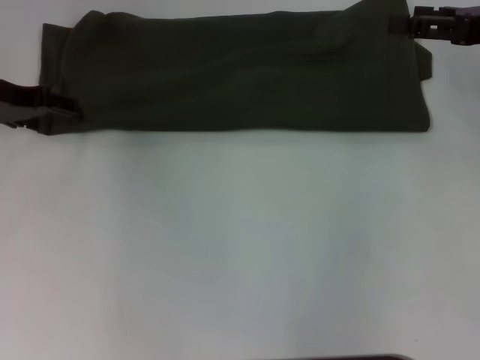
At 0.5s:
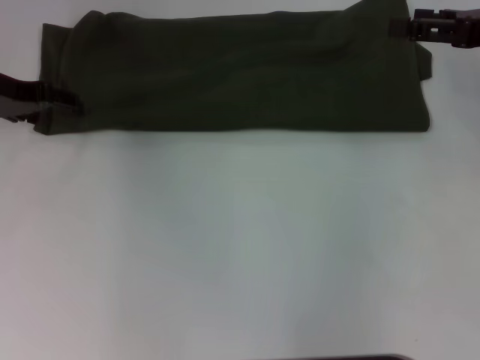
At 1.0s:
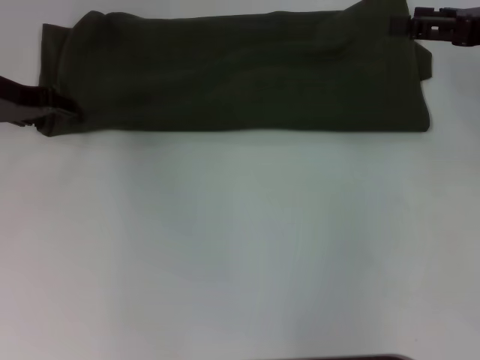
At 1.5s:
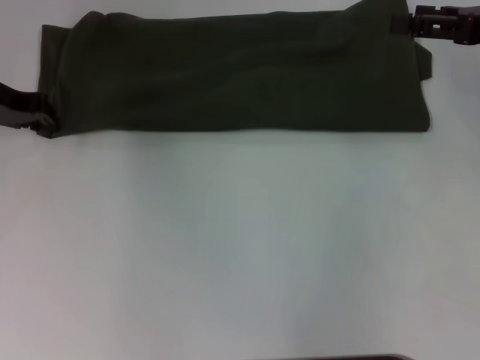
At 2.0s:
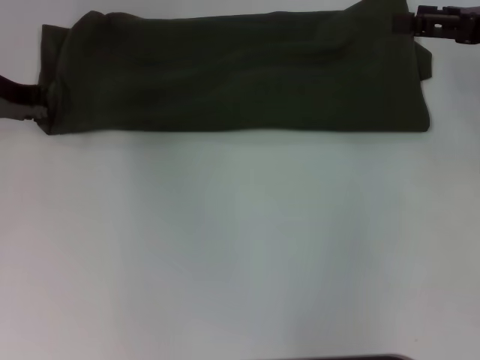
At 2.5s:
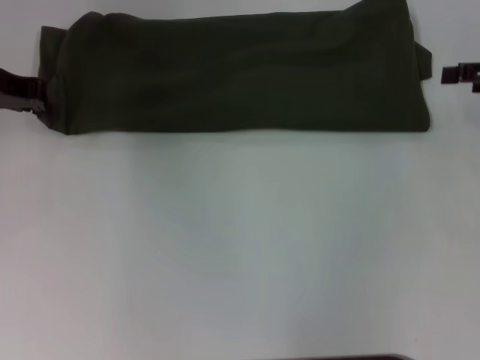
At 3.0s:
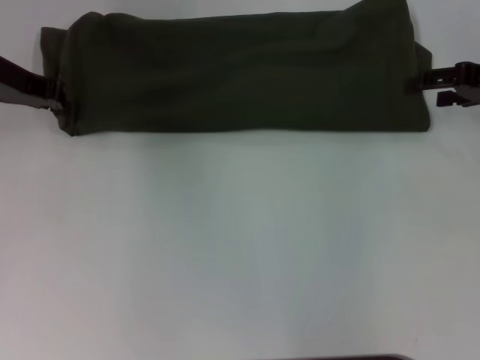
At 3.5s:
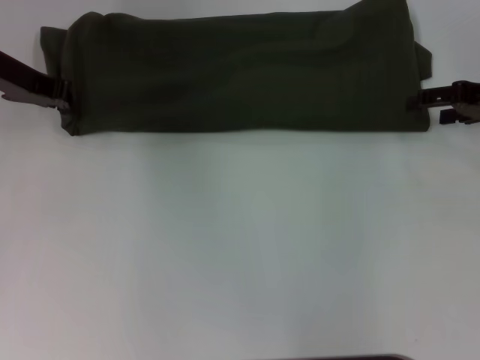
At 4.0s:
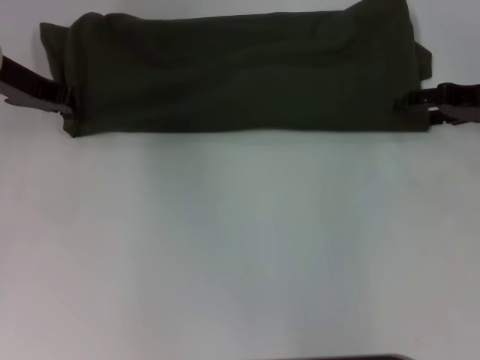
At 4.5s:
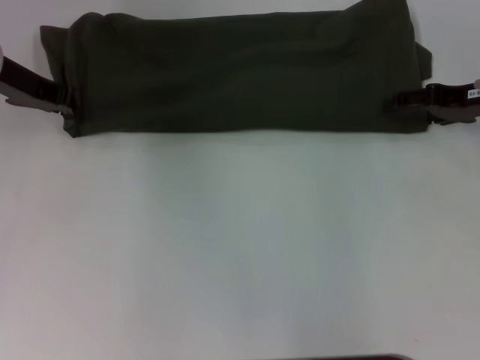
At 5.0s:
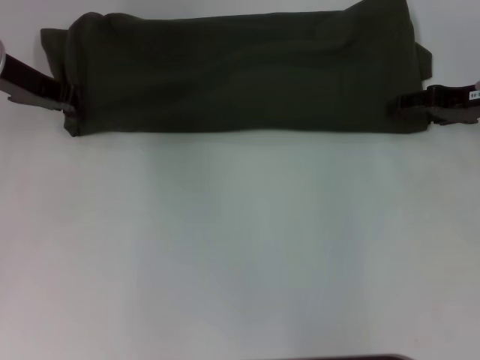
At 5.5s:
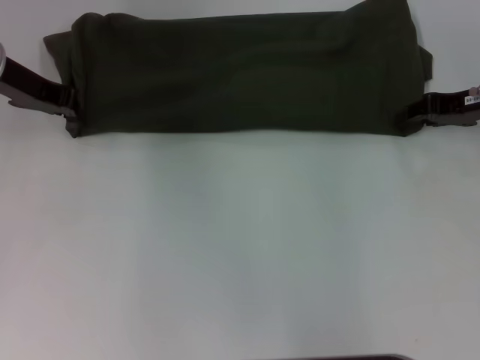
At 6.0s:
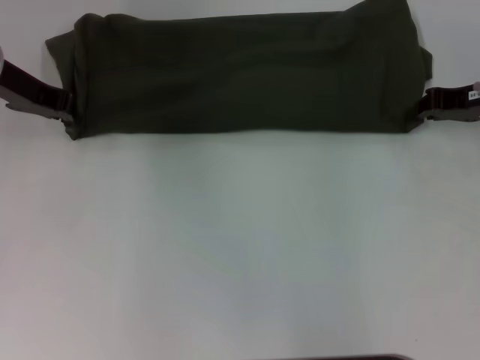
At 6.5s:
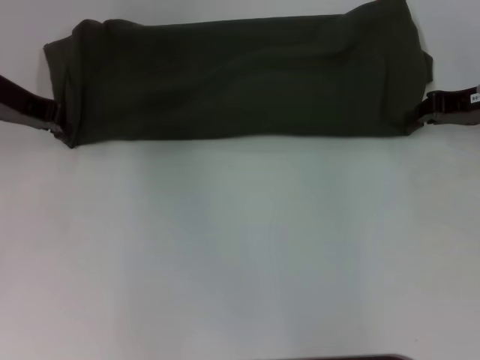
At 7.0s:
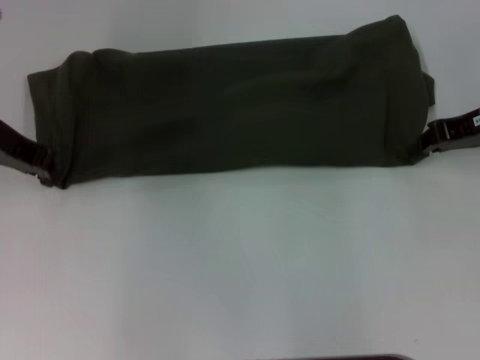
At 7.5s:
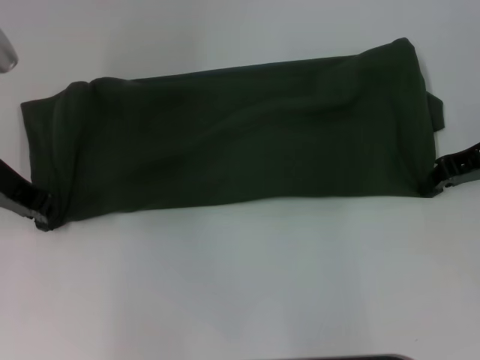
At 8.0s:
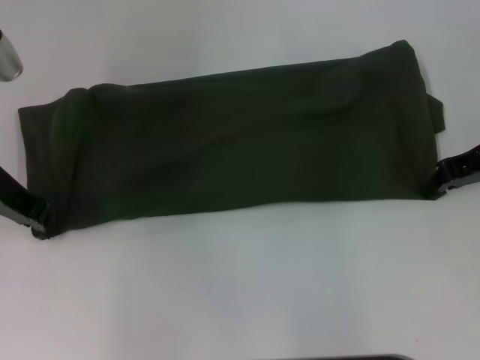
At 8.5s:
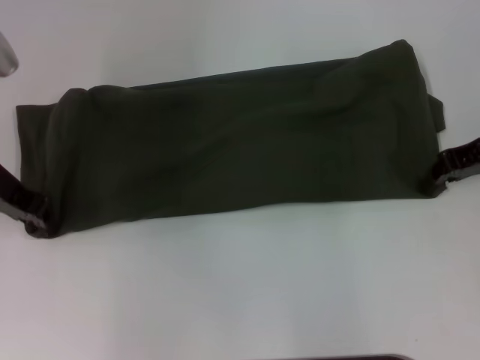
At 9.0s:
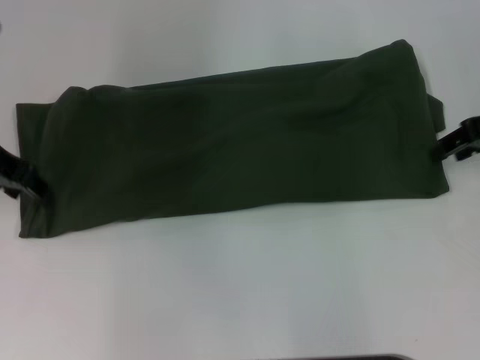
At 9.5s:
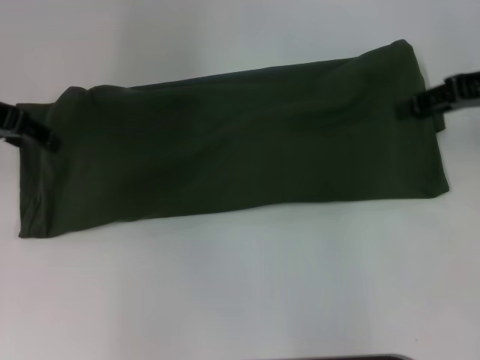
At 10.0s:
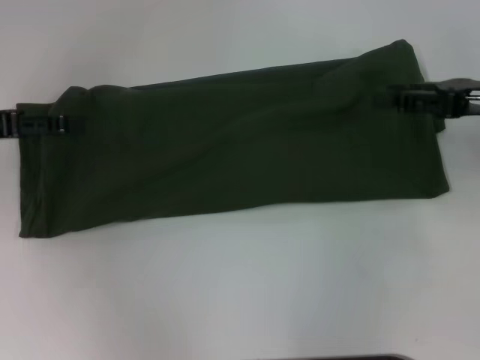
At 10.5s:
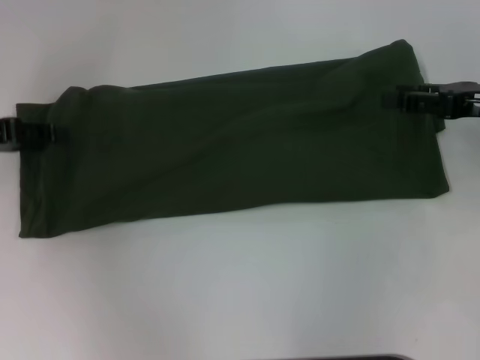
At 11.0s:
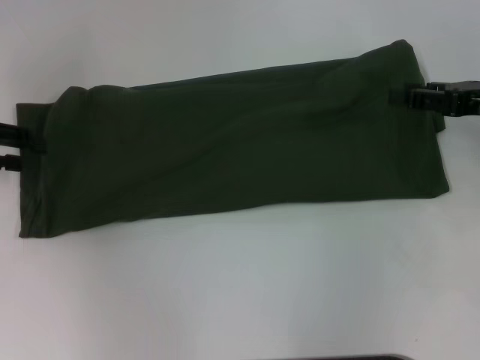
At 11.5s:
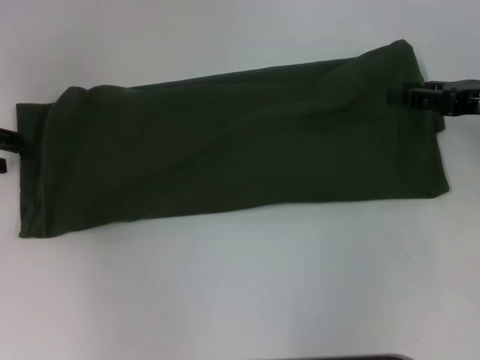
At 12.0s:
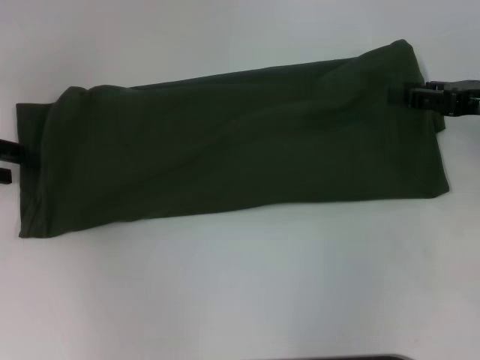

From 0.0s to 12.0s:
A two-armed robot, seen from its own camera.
Step, from 0.0s to 8.5s: Pull the clothes with your right hand.
From 2.0s to 4.0s: The right gripper is displaced downward by about 5 cm.
From 4.0s to 6.0s: The right gripper closes up.
From 6.0s to 8.0s: The left gripper shifts approximately 5 cm backward.
From 8.0s to 10.0s: The left gripper is displaced to the left by about 5 cm, and opens up. The right gripper opens up.

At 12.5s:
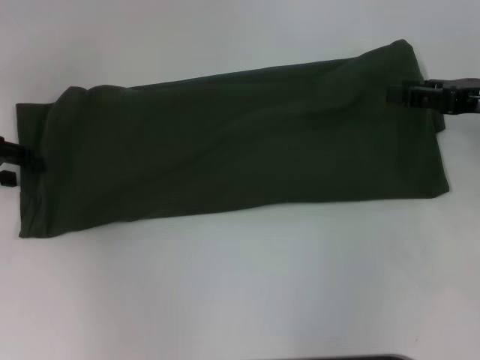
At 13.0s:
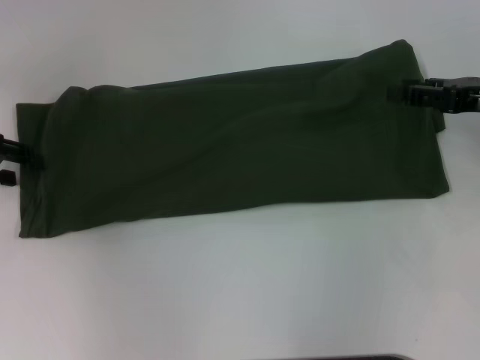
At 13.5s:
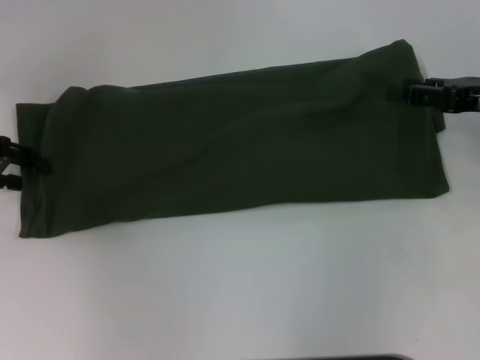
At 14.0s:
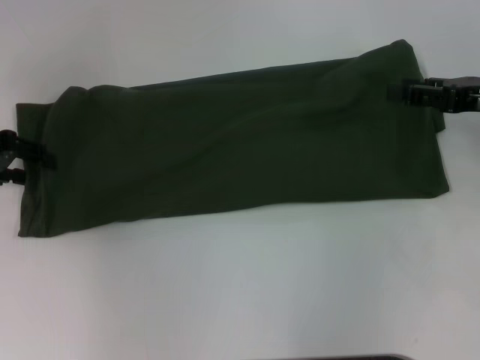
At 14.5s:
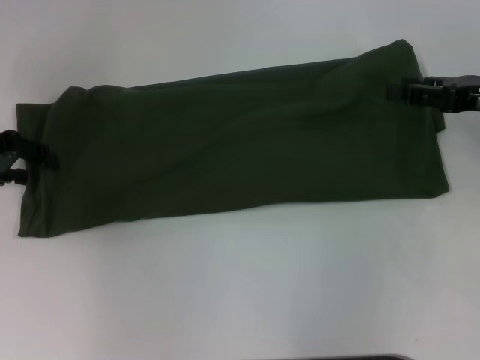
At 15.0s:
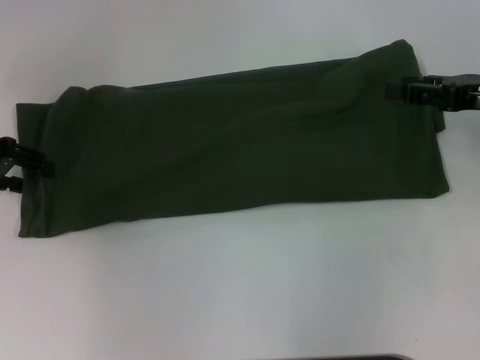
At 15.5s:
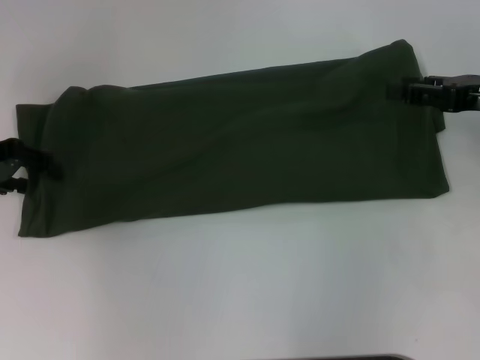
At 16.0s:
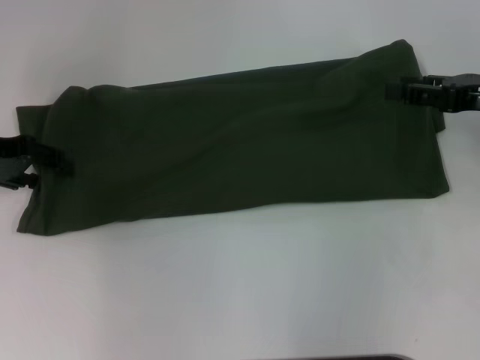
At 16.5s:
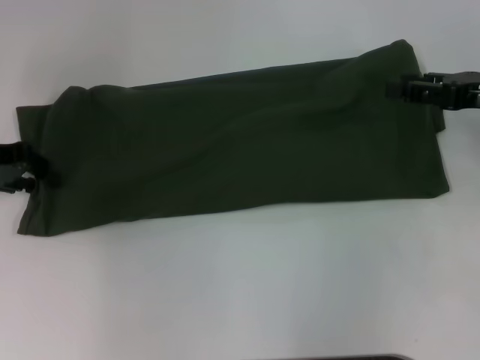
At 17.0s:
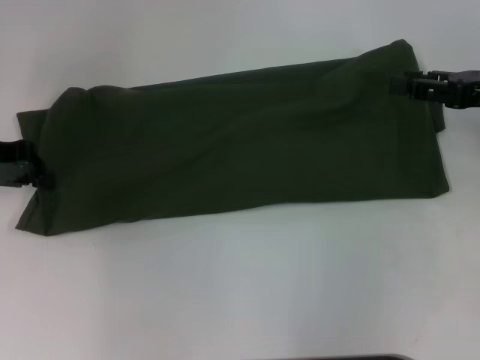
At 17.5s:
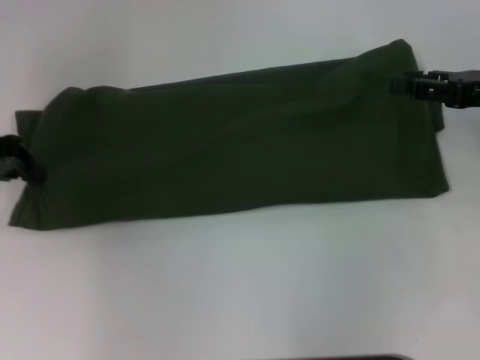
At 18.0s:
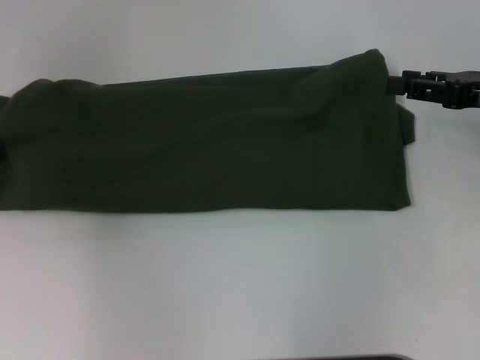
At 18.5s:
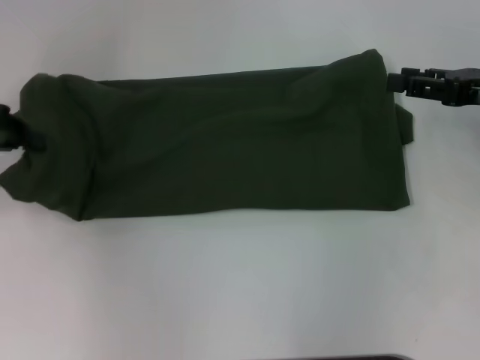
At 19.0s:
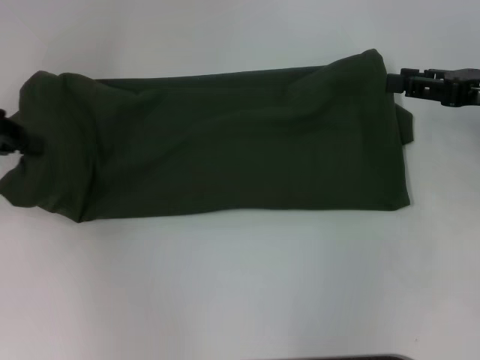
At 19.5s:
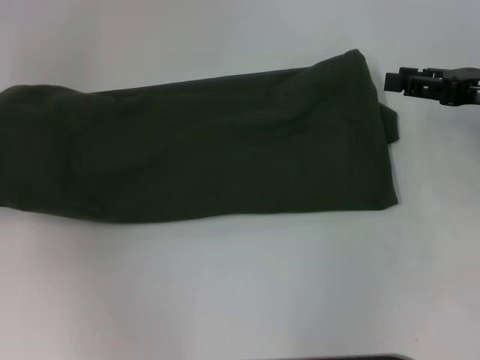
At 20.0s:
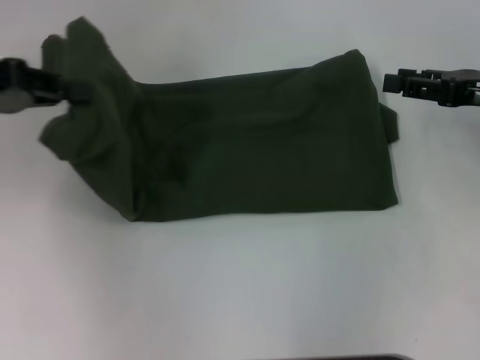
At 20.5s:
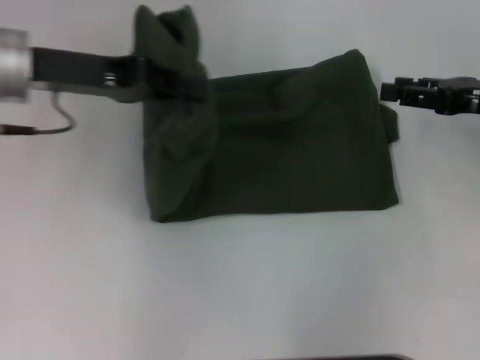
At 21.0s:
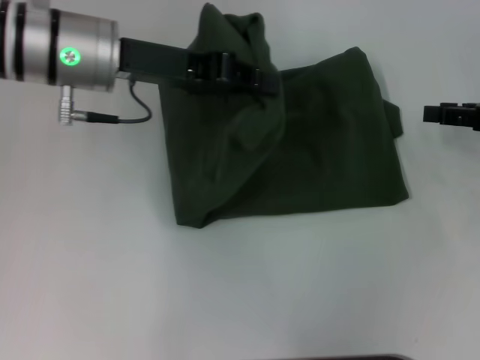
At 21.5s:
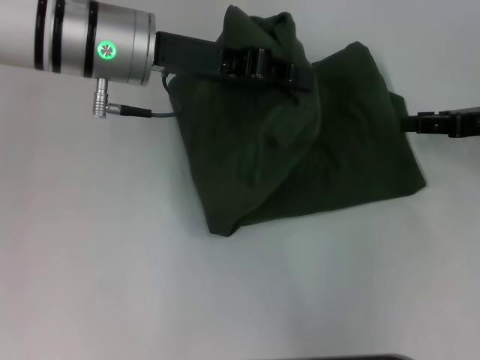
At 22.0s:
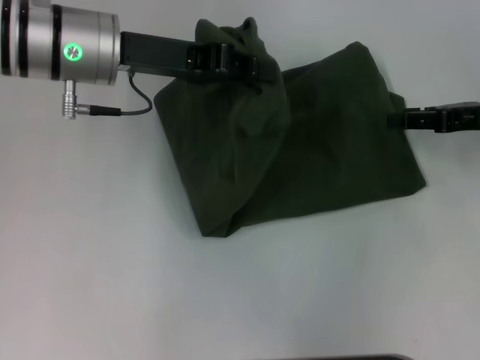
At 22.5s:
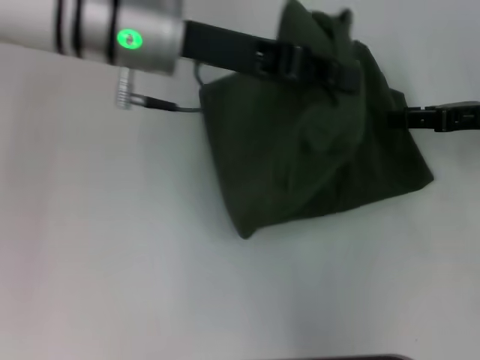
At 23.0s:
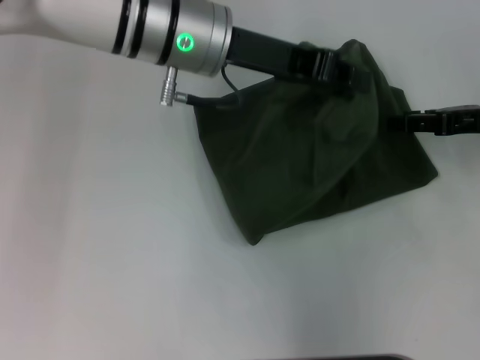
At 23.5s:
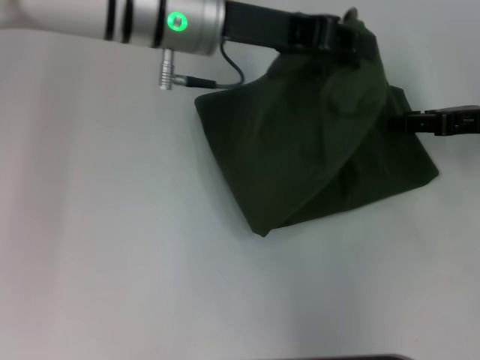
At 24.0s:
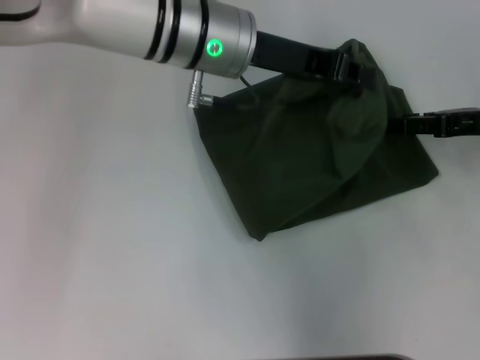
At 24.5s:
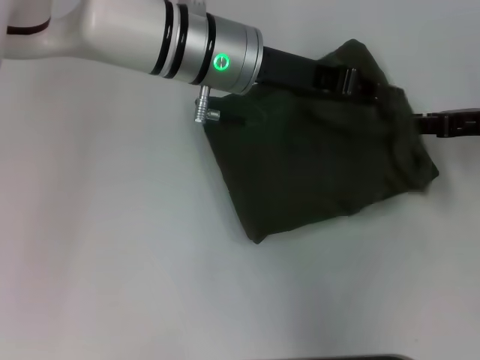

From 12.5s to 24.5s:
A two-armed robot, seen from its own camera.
Step, from 12.5s to 24.5s: Fold the clothes with your left hand.
From 14.5s to 16.5s: There are only small adjustments of the grippers.
From 16.5s to 18.5s: The left gripper ends up roughly 5 cm from where it was, and closes its fingers.
From 18.5s to 20.5s: The left gripper goes roughly 10 cm to the right.
From 20.5s to 22.5s: The left gripper heads to the right, covering roughly 10 cm.
From 22.5s to 24.5s: The left gripper is displaced to the right by about 5 cm.

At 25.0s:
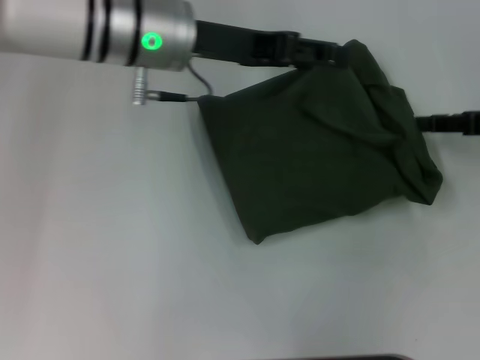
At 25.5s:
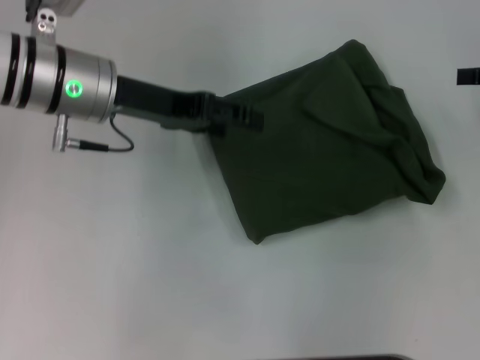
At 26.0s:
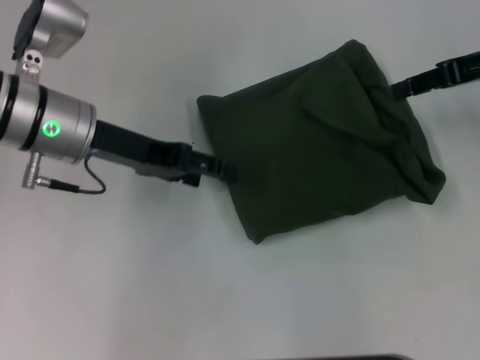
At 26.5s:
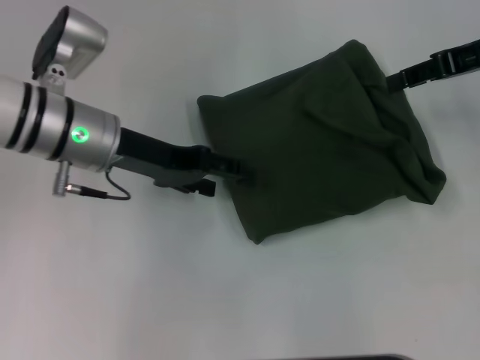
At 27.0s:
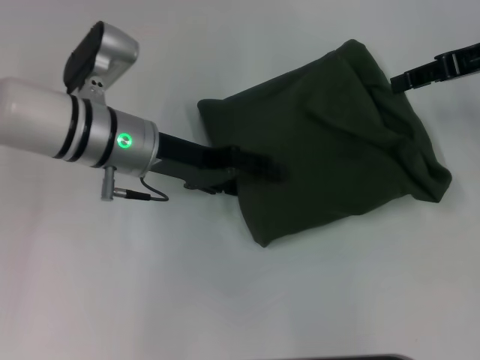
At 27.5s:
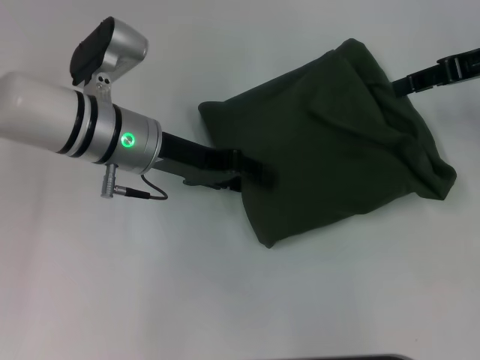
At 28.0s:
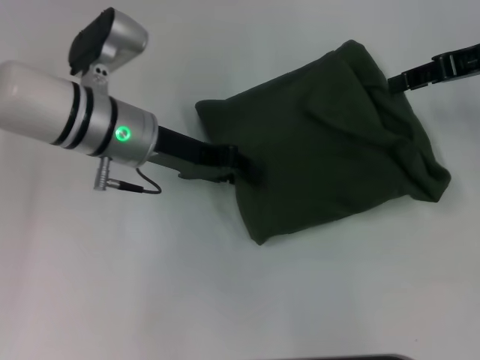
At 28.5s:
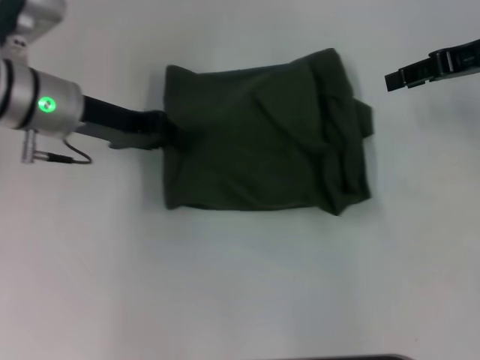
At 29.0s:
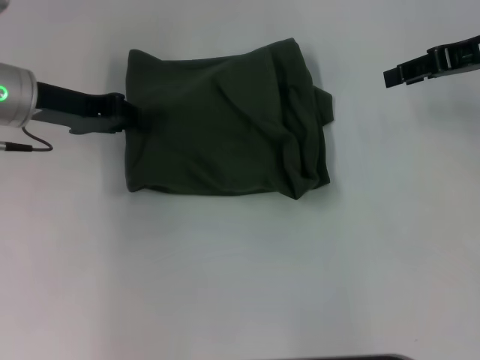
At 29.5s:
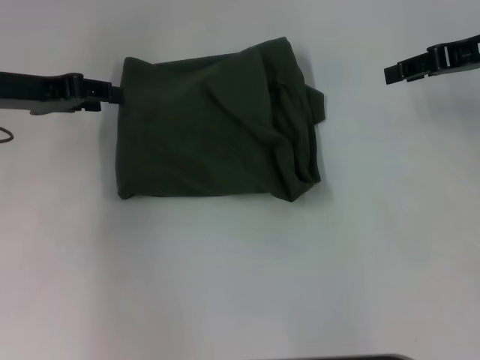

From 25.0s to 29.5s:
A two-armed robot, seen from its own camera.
From 25.0s to 27.0s: The right gripper travels upward and forward by roughly 10 cm; the left gripper goes roughly 10 cm downward, and opens up.
From 27.0s to 29.5s: The left gripper travels to the left by approximately 15 cm, and closes its fingers.
